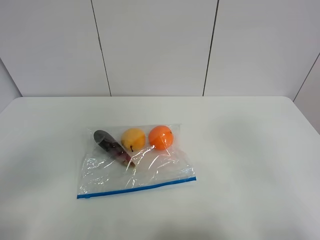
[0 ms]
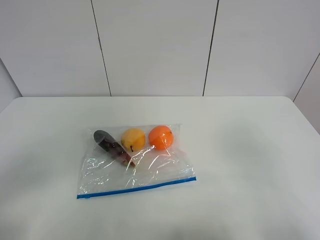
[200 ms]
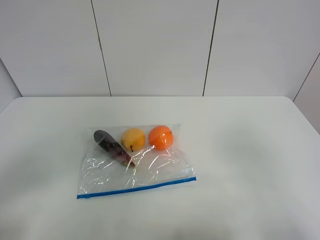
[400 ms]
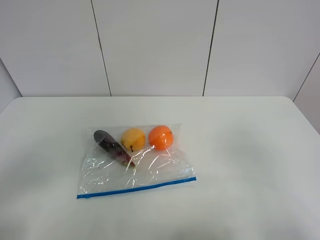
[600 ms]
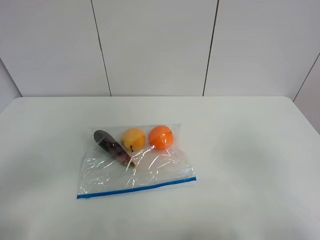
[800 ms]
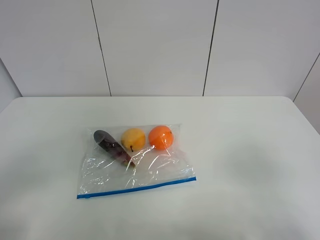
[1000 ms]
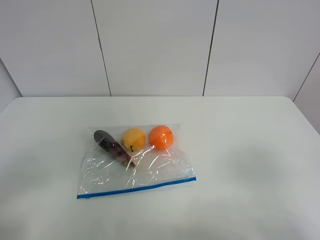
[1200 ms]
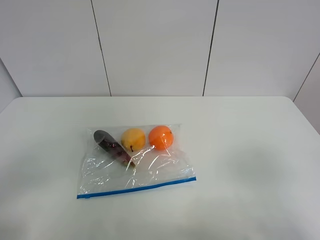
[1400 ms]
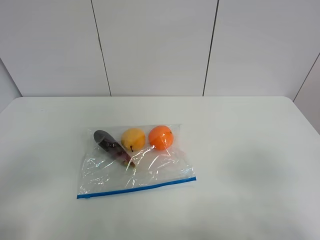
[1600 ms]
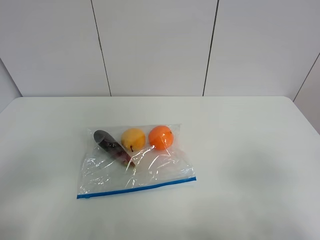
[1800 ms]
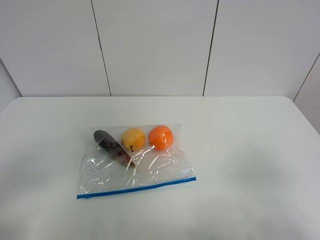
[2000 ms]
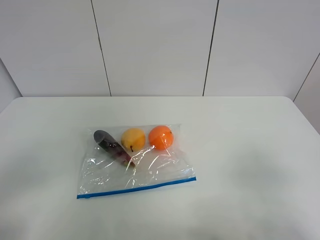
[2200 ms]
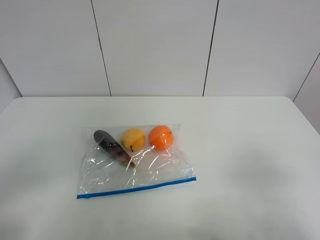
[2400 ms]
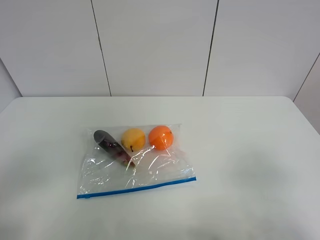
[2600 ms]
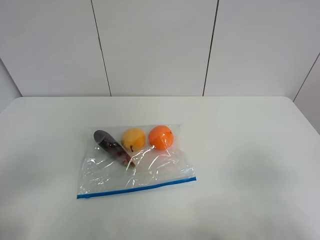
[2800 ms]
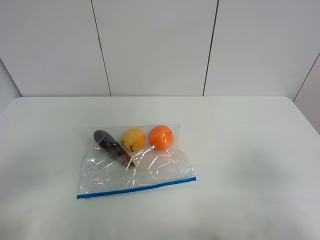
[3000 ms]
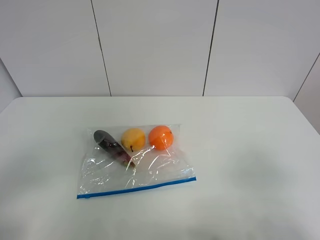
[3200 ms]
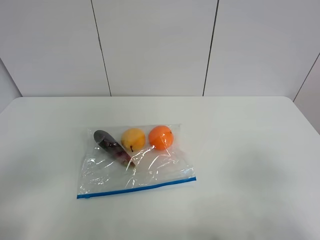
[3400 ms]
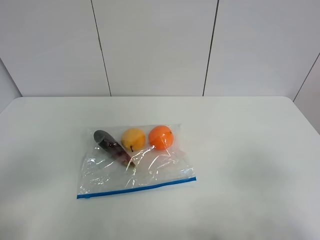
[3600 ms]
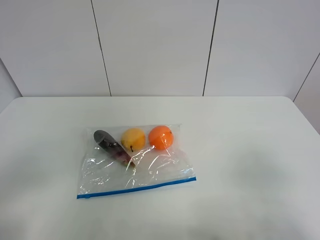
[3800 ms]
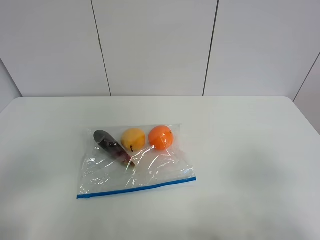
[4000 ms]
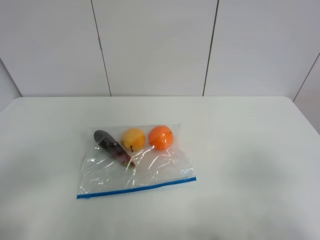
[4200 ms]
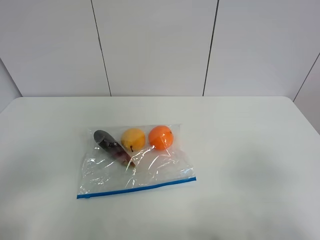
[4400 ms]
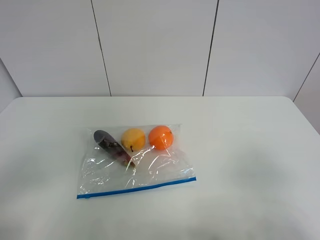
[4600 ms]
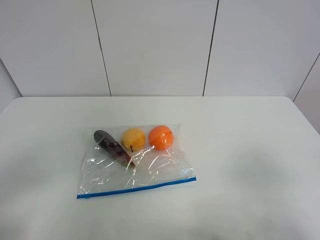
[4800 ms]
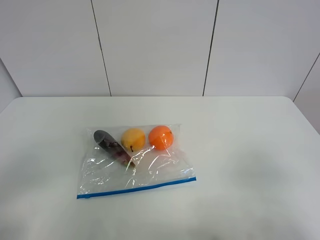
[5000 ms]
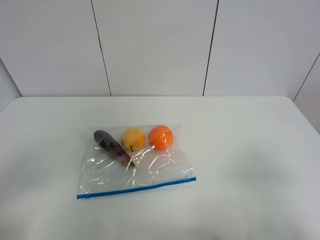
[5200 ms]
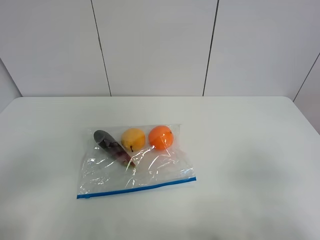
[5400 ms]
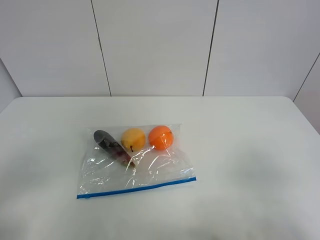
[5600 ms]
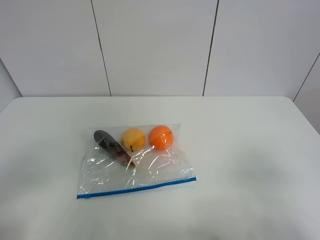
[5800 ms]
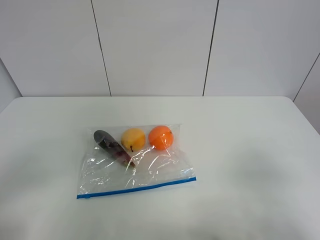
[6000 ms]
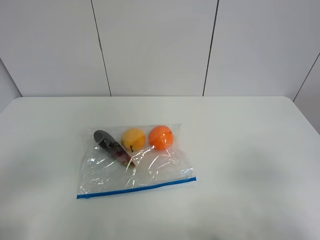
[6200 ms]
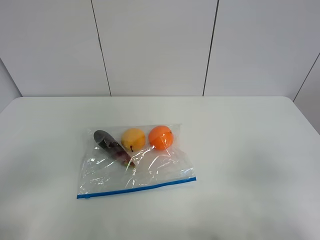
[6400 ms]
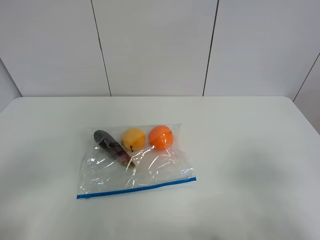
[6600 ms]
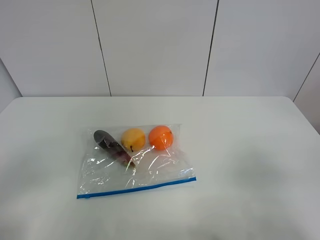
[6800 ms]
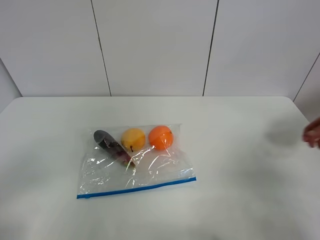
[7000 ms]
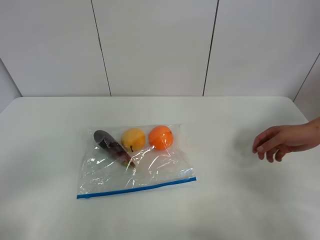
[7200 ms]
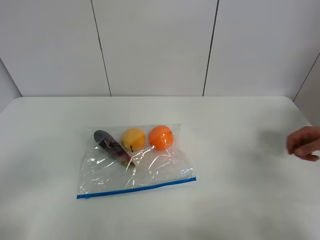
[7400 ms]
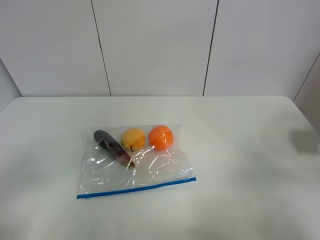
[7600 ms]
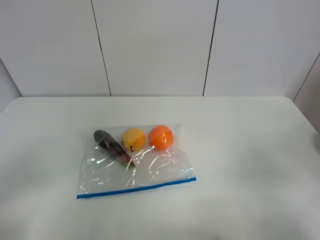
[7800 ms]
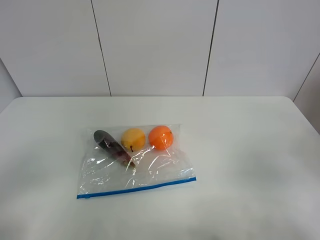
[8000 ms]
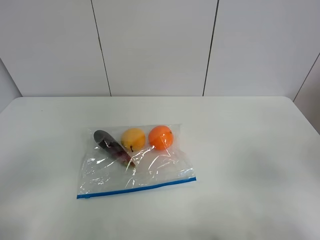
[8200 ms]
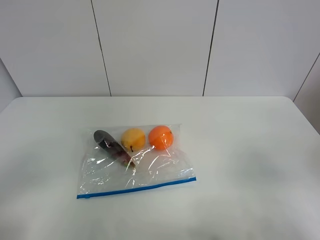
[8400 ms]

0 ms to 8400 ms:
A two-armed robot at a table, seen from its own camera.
2800 ms to 8400 ms: Both grippers stay put.

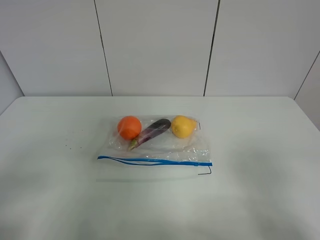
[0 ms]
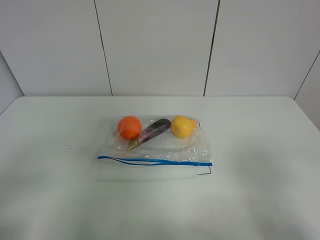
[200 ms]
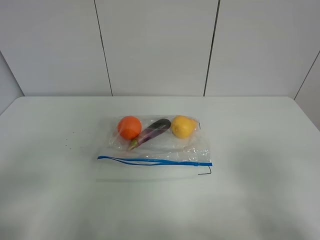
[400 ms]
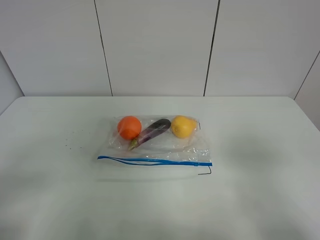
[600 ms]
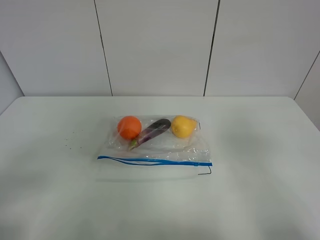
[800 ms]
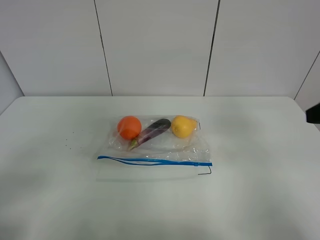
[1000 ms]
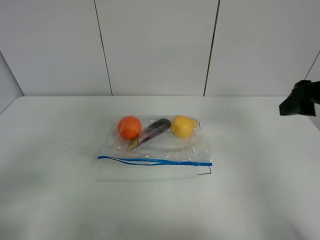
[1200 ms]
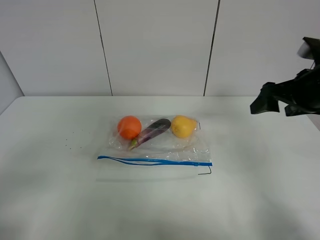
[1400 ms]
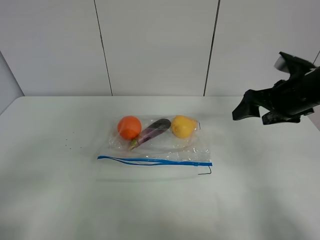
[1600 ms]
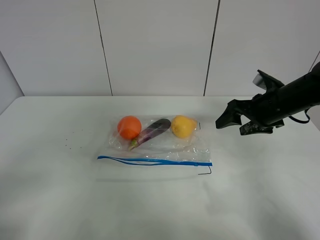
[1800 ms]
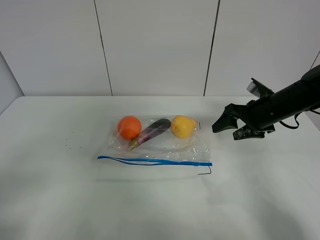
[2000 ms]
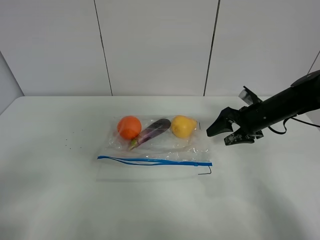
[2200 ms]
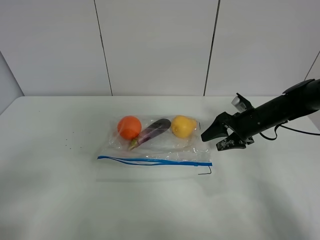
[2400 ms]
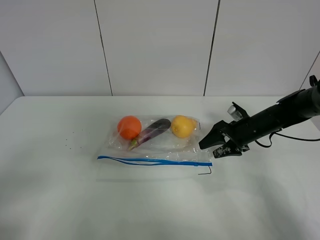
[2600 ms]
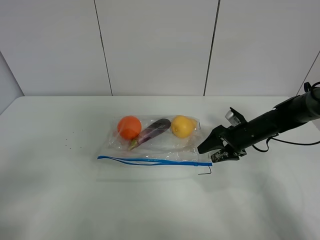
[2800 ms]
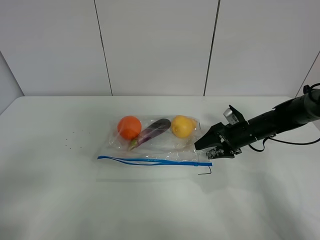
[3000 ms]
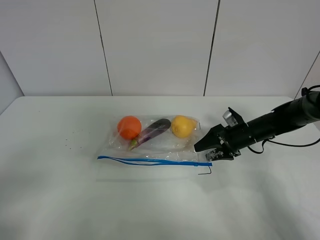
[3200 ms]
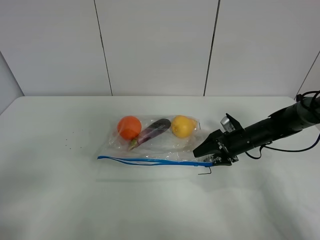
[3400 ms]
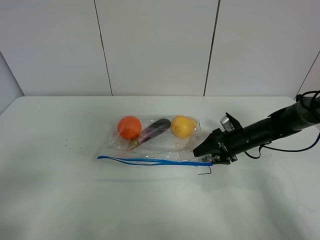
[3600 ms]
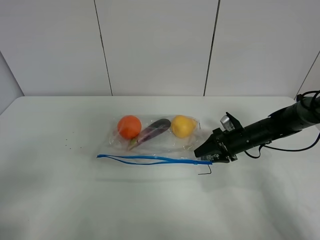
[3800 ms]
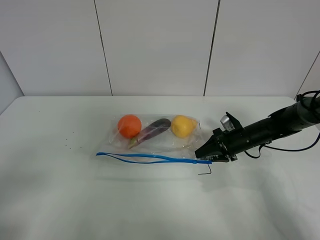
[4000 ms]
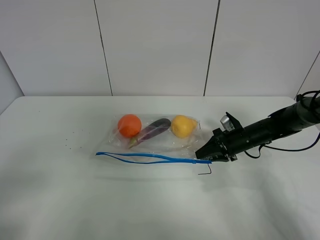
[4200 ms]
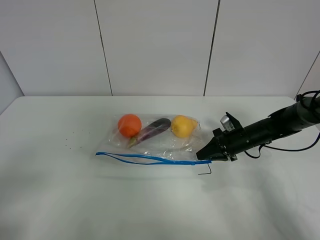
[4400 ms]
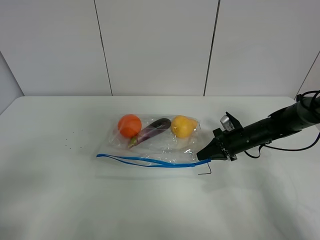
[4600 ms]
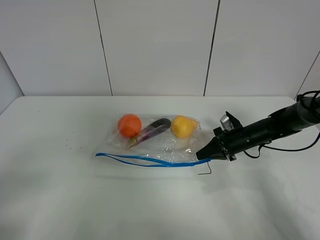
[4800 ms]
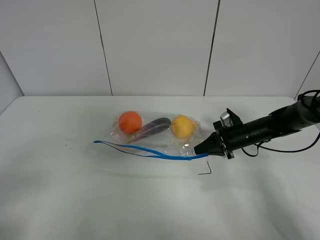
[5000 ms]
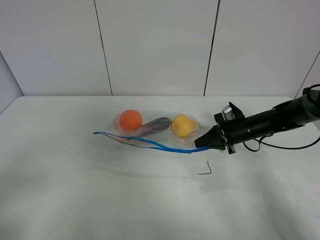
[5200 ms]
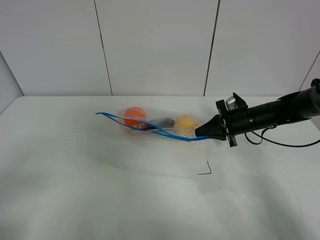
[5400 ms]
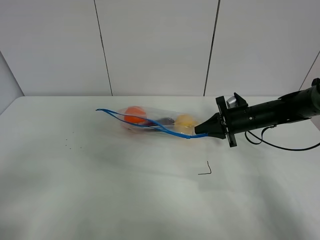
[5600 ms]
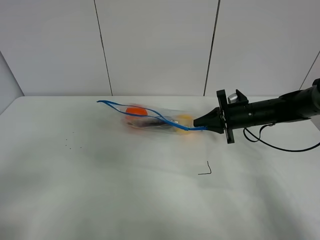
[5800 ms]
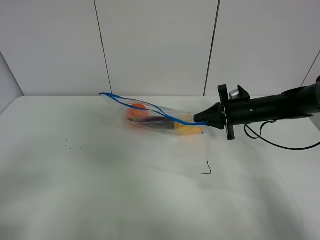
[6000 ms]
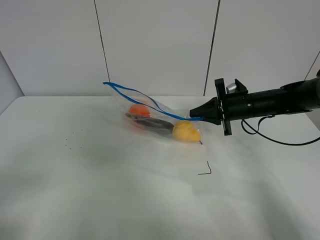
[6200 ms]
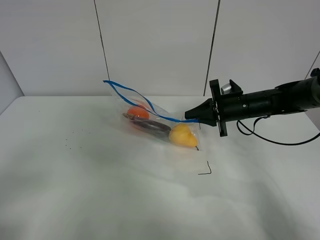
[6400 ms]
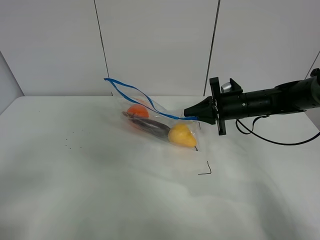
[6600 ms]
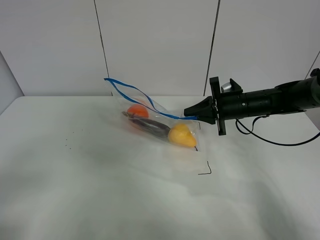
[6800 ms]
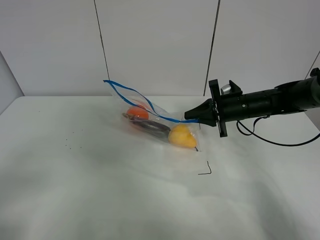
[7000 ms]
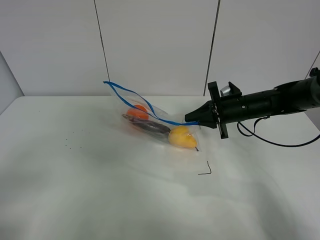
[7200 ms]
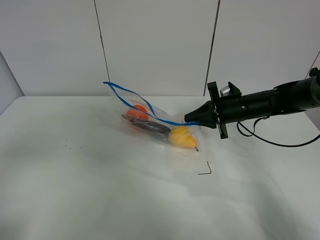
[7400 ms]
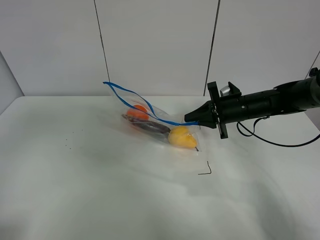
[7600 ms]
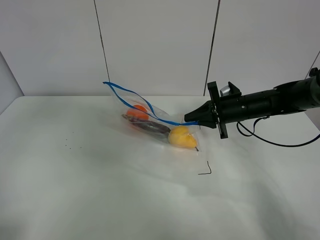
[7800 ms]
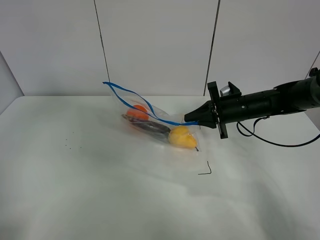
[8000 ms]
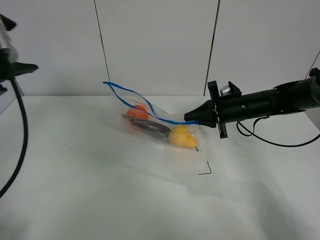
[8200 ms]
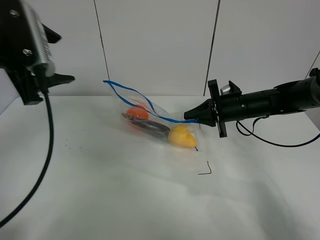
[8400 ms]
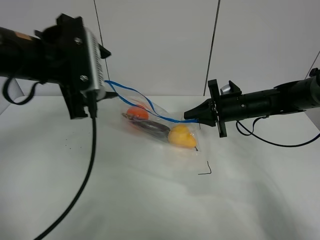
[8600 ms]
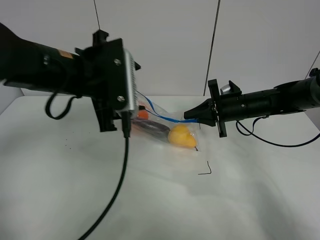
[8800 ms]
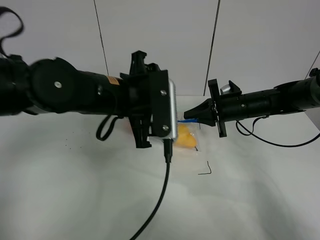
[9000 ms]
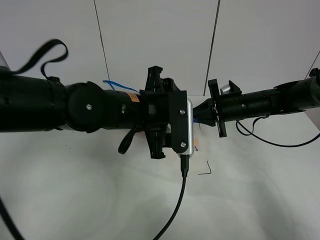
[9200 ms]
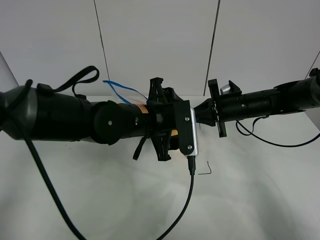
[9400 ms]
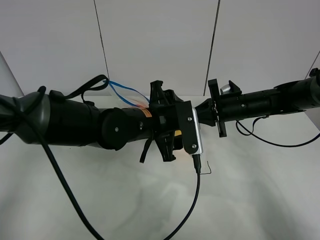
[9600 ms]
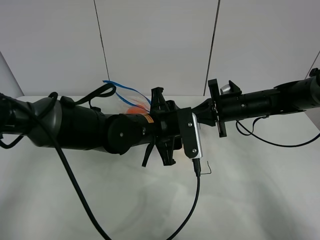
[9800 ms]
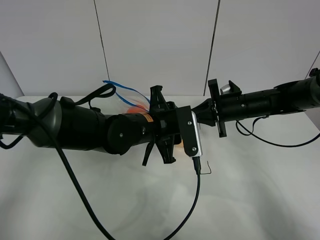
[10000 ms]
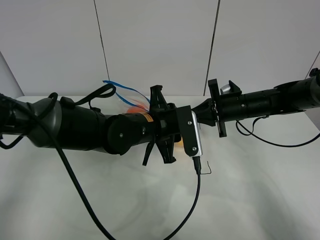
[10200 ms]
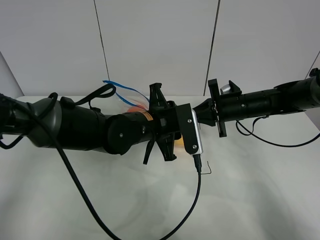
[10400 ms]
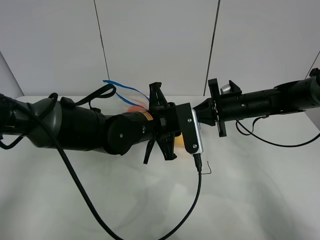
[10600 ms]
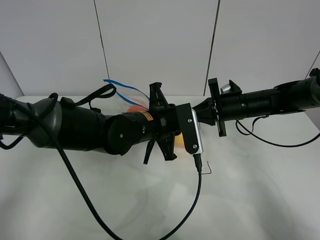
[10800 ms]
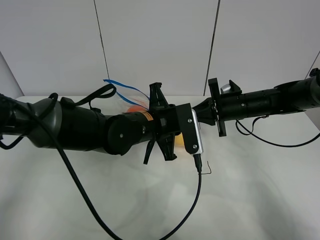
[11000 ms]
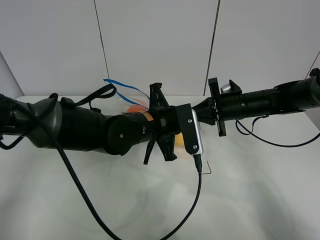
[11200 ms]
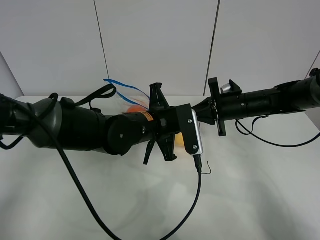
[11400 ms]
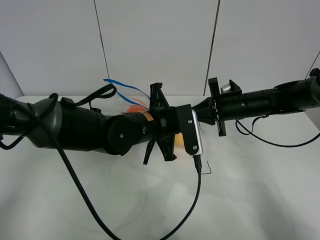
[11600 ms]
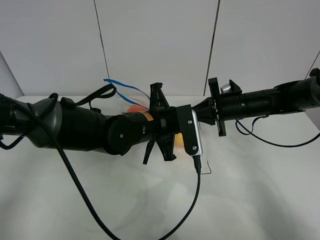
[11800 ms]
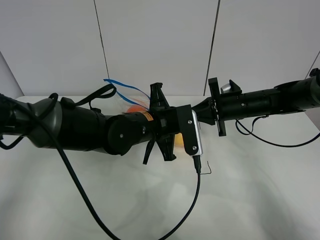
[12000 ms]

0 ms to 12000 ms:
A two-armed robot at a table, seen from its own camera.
Step, 0 ms to 4400 ms: Grasp the fruit bag with right gripper.
Step, 4600 ms to 6400 ms: Lift the fruit bag with your right gripper.
0 ms to 1600 ms: The right gripper is displaced forward by roughly 30 cm.
1600 ms to 3000 ms: The right gripper travels downward and forward by approximately 20 cm.
3000 ms to 4400 ms: The right gripper closes its fingers.
4400 ms to 6000 ms: The right gripper goes some 10 cm upward.
6000 ms to 7600 ms: The left gripper moves upward and forward, about 15 cm.
7600 ms to 9000 ms: The left gripper travels to the right, forward and downward by roughly 35 cm.
9000 ms to 10400 ms: The left gripper moves downward, some 10 cm, and closes its fingers.
10400 ms to 12000 ms: The left gripper closes.

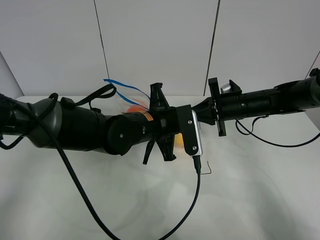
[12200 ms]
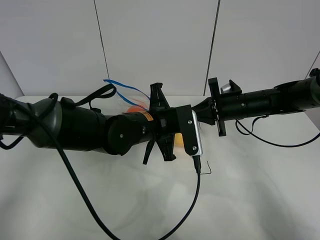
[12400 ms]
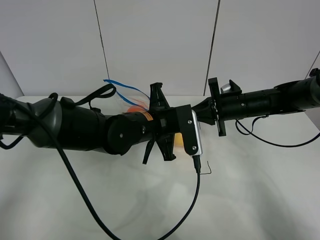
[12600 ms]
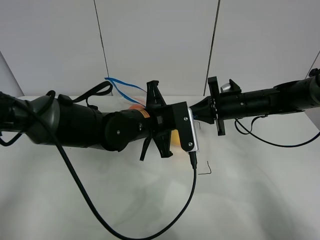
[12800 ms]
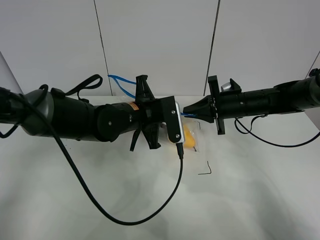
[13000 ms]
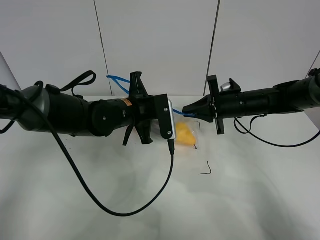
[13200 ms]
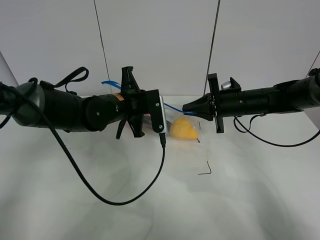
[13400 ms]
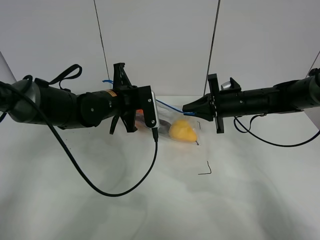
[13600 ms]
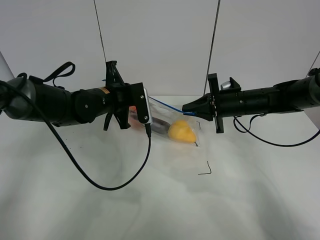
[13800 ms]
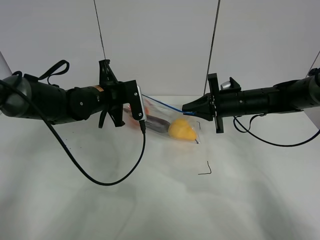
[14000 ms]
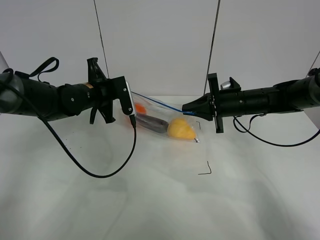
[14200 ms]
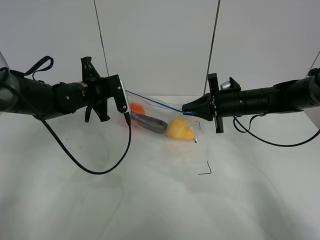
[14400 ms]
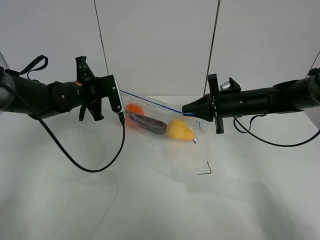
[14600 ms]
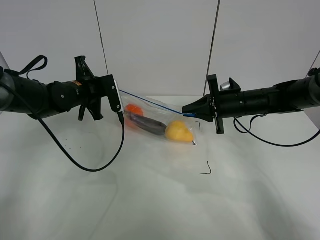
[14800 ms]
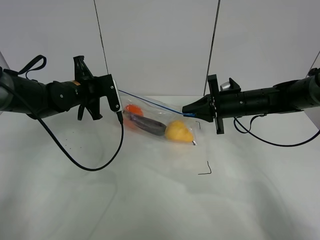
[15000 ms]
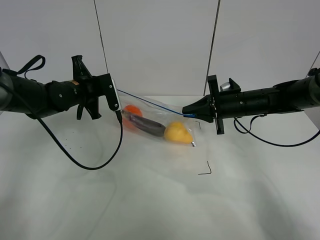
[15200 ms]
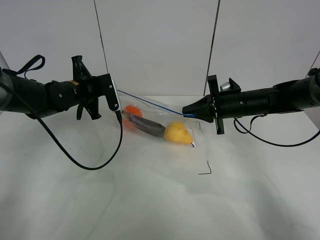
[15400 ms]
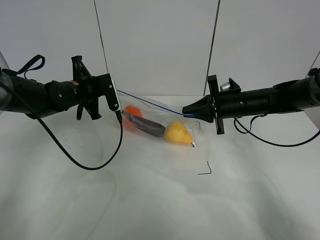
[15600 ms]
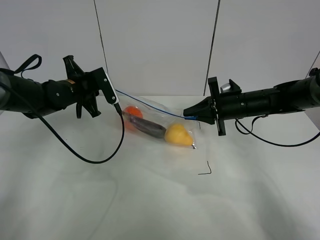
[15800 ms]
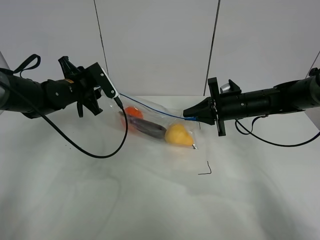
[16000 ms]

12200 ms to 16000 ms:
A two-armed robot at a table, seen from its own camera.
12200 ms to 13400 ms: The left gripper shifts roughly 10 cm to the left and forward.
13400 ms to 14800 ms: The left gripper goes about 10 cm to the left.
14800 ms to 16000 ms: The left gripper opens.
